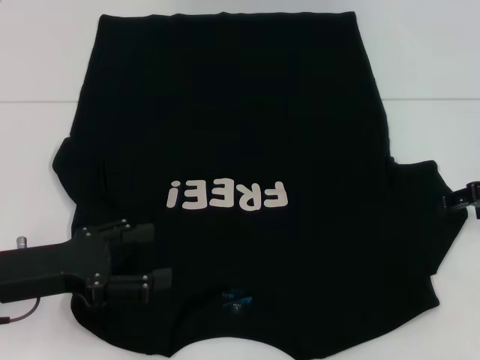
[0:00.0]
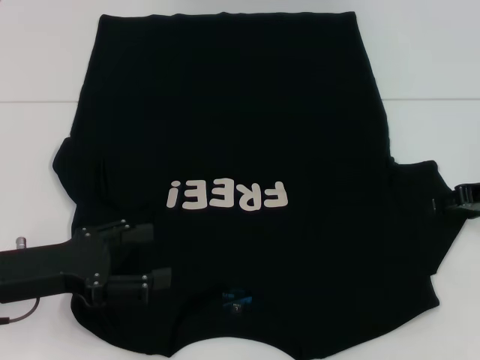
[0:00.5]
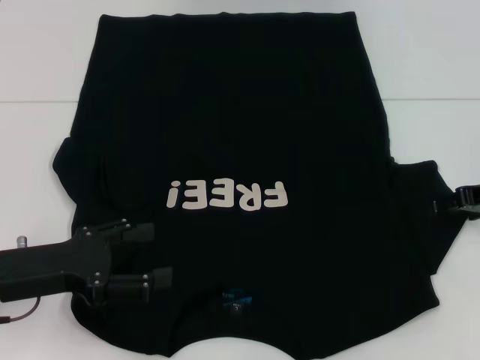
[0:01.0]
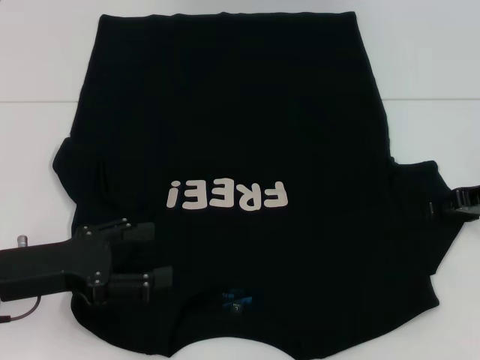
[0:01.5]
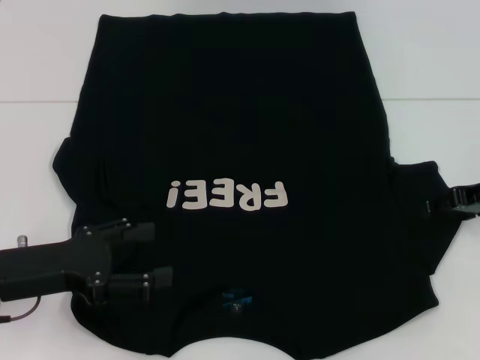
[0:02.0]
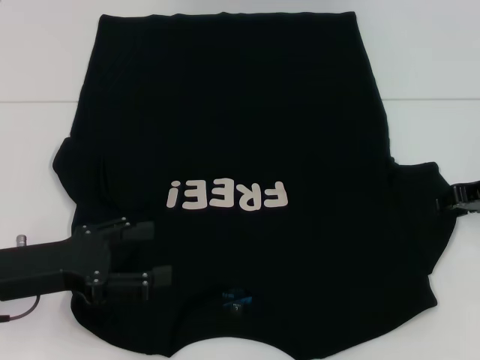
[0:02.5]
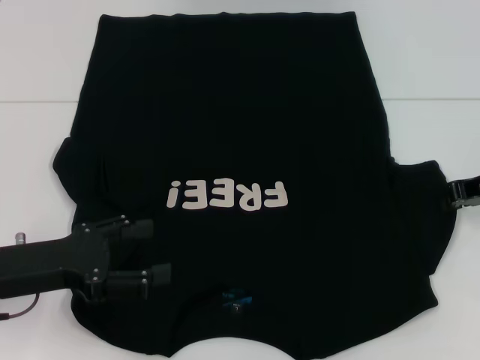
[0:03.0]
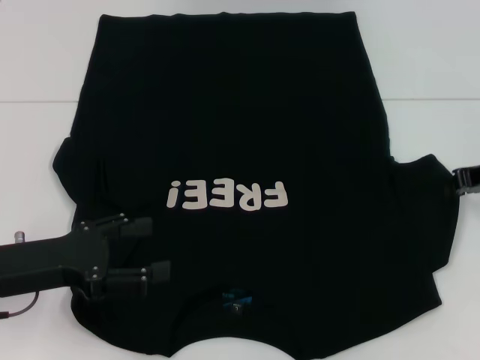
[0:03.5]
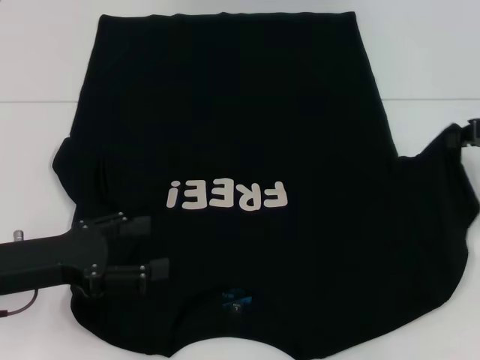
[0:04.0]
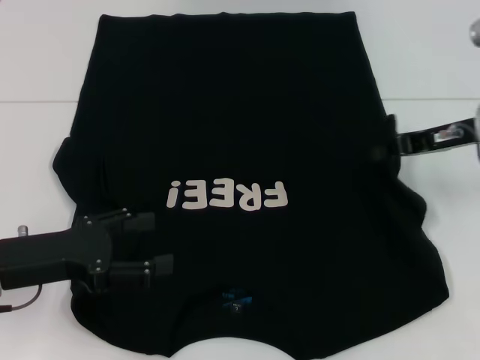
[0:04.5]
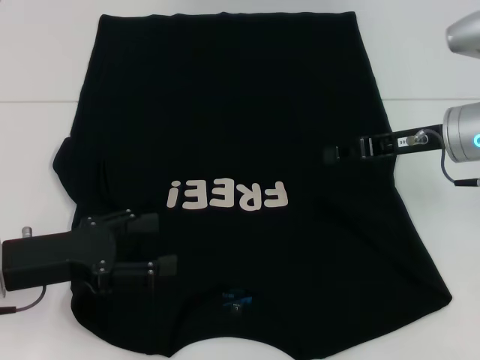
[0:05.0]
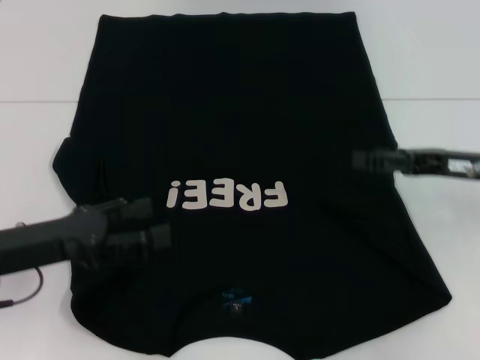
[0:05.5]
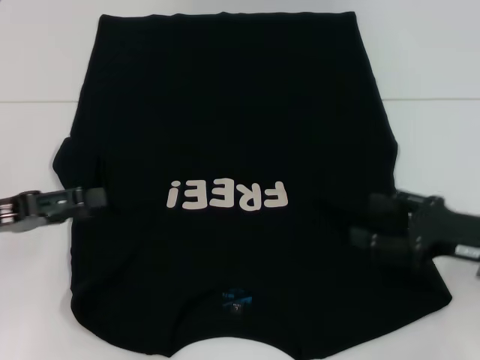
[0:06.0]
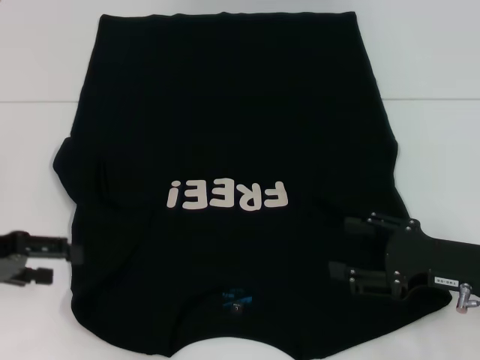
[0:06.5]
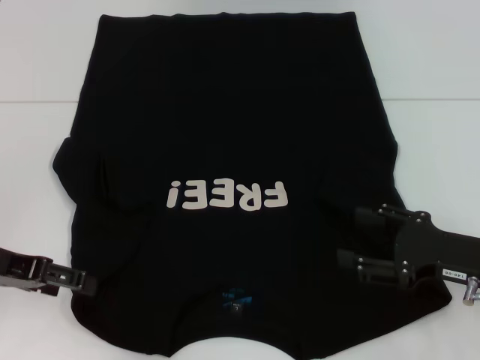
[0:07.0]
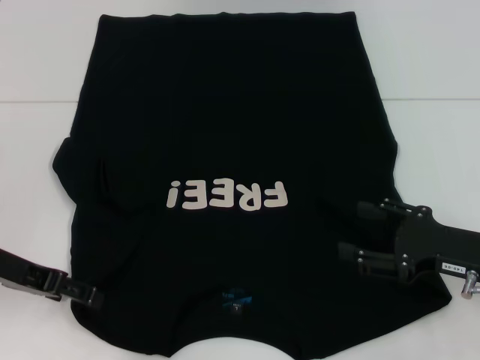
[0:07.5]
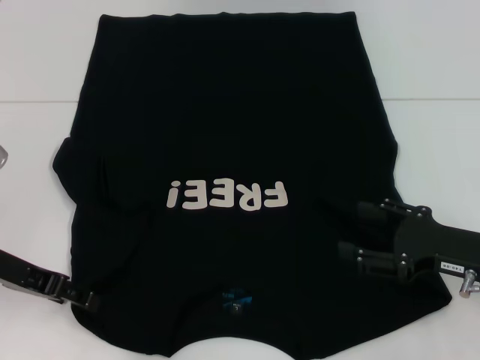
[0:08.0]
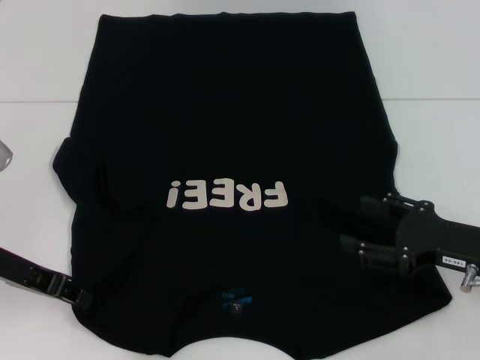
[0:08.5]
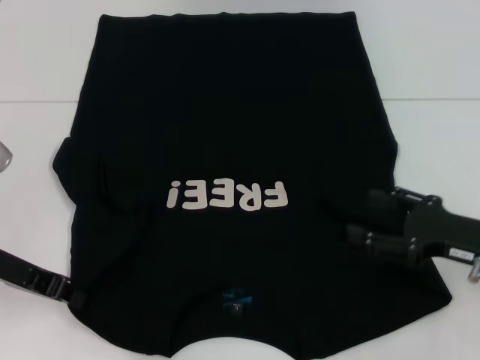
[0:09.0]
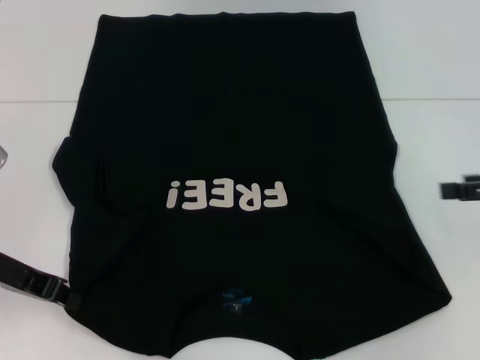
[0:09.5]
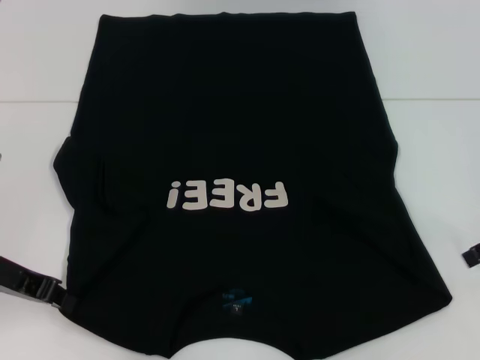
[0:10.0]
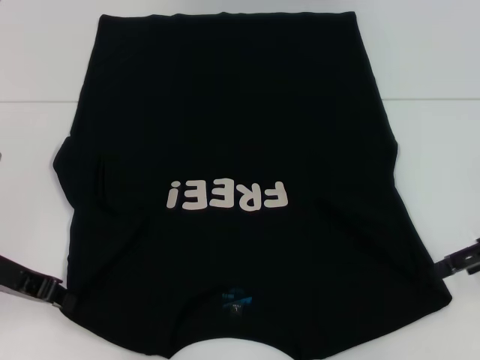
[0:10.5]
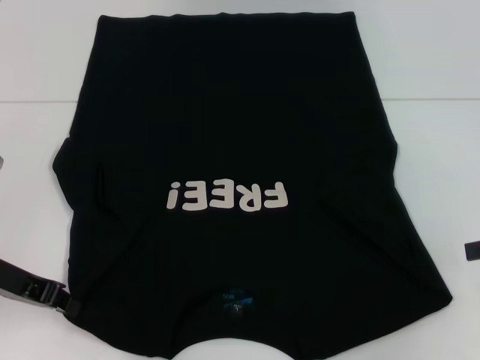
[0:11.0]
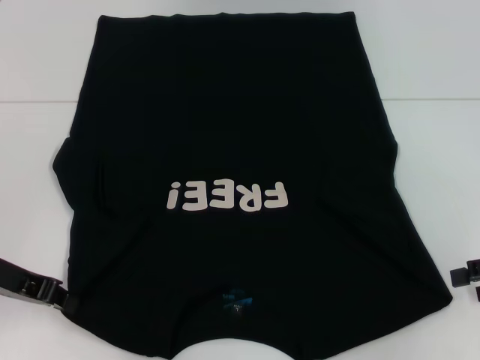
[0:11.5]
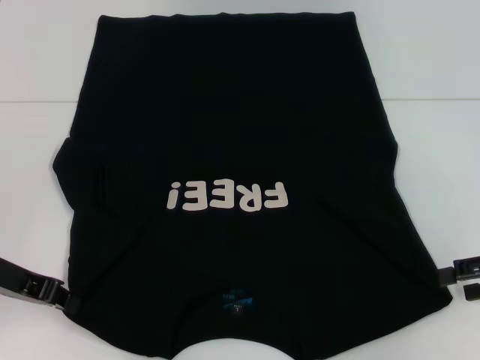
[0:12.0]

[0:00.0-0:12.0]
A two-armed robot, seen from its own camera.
Step, 0:00.0 to 0:05.0: Fold the bottom right sleeve with your right hand.
Step, 0:05.5 to 0:09.0: Grab the bottom left corner with your left hand.
0:00.0 to 0:02.0: The grippers move only a little.
0:02.0 to 0:04.0: The right gripper changes place by approximately 5 cm, and closes its fingers.
0:04.0 to 0:06.0: The left gripper shifts roughly 5 cm to the left. The right gripper goes roughly 15 cm backward and downward, and opens.
0:06.0 to 0:08.0: The left gripper shifts by approximately 5 cm.
0:08.0 to 0:10.0: The right gripper moves upward and forward, approximately 10 cm. The left gripper closes its fingers.
0:10.0 to 0:12.0: The right gripper travels downward by about 5 cm.

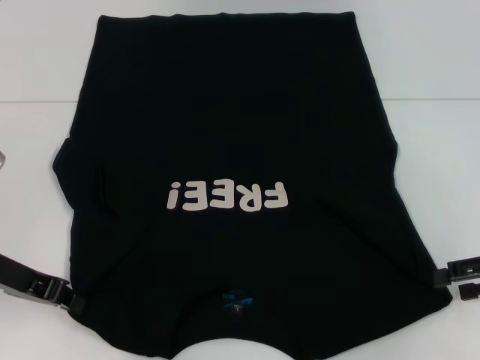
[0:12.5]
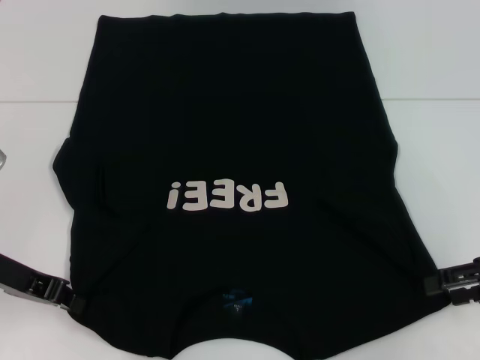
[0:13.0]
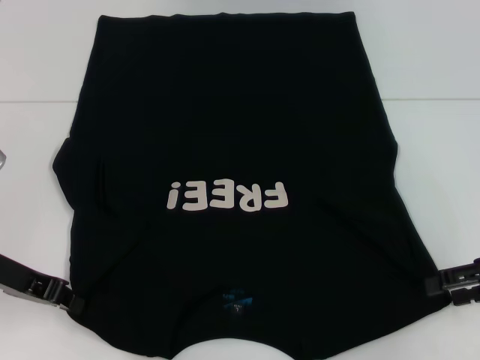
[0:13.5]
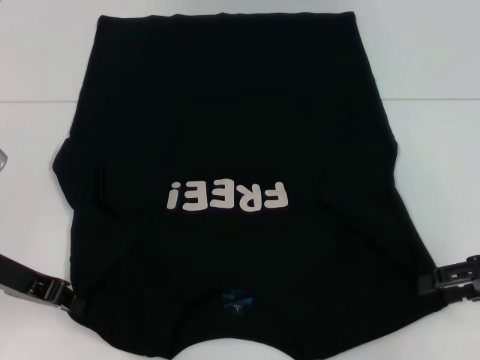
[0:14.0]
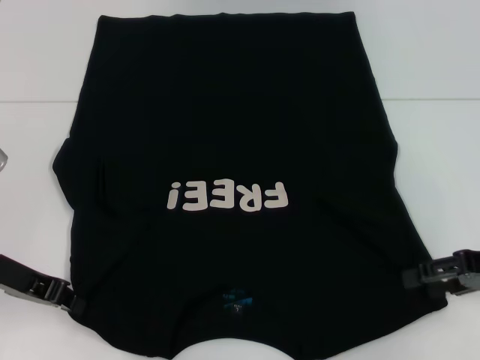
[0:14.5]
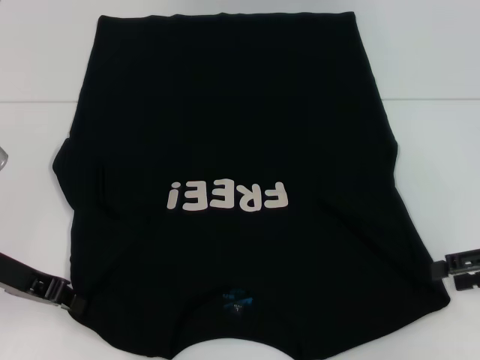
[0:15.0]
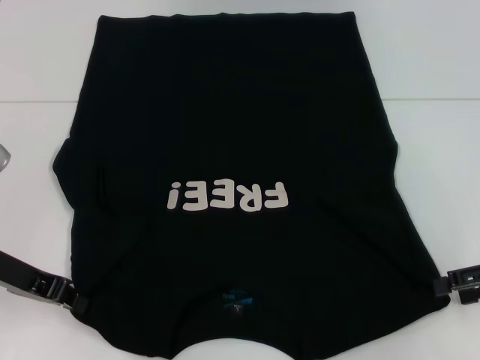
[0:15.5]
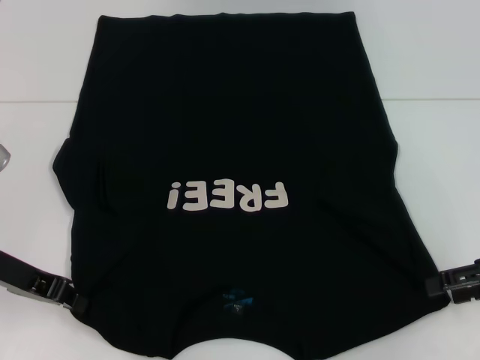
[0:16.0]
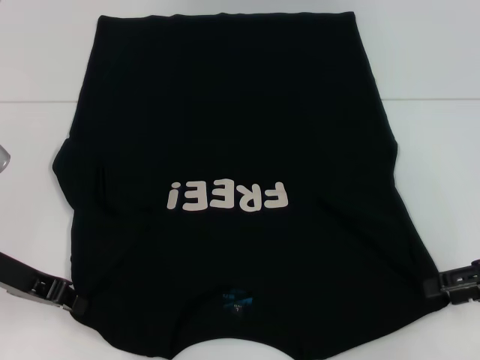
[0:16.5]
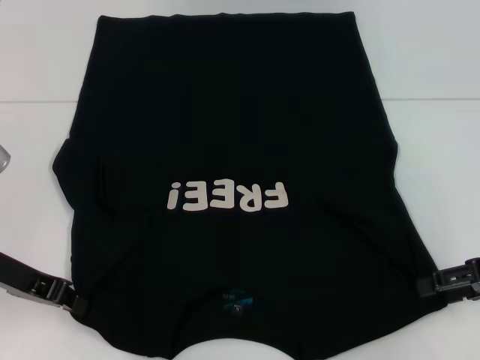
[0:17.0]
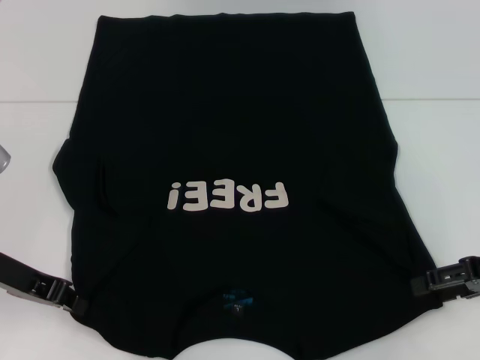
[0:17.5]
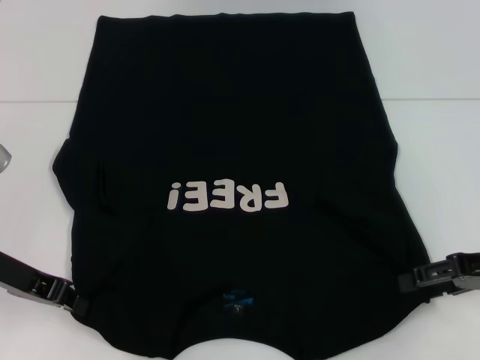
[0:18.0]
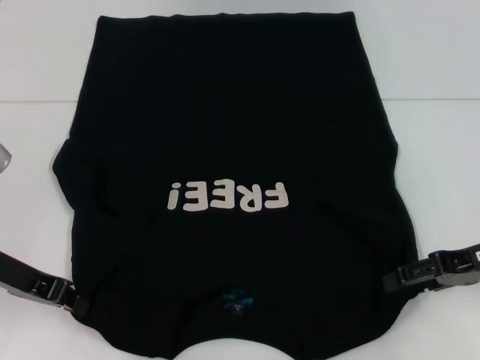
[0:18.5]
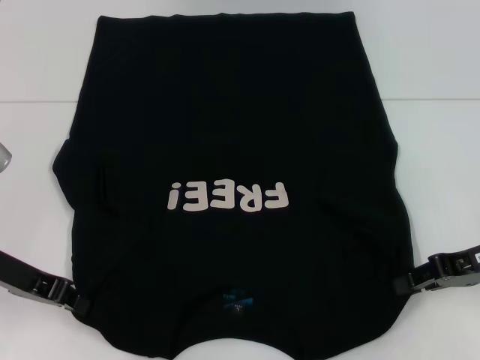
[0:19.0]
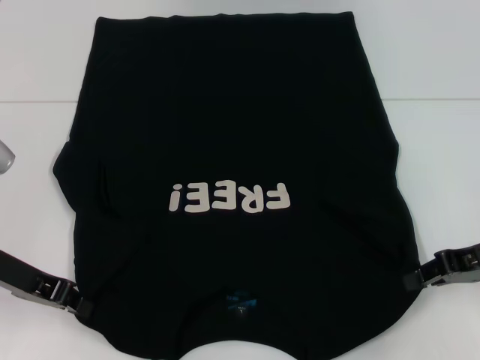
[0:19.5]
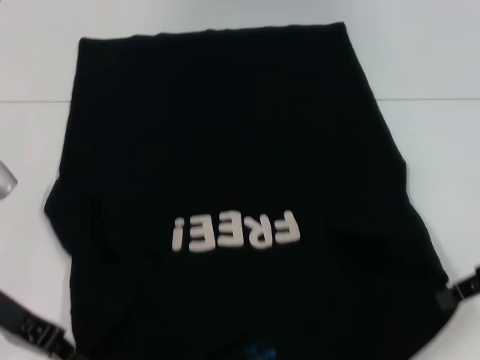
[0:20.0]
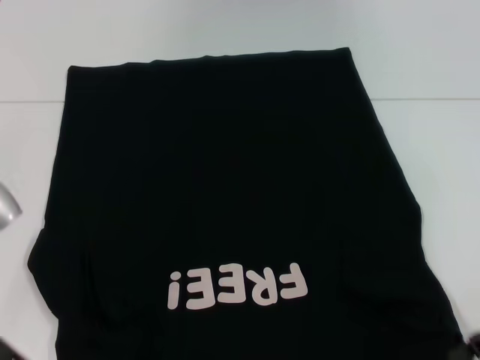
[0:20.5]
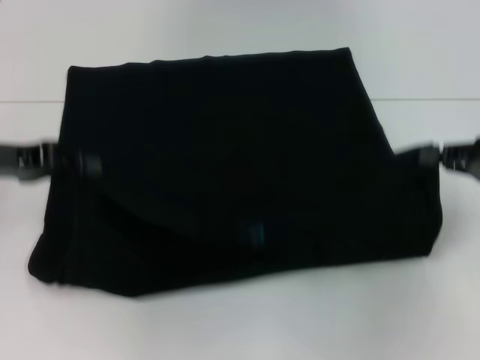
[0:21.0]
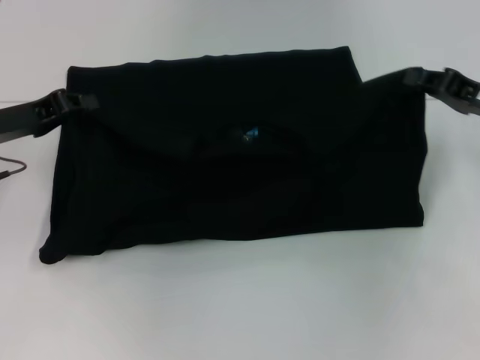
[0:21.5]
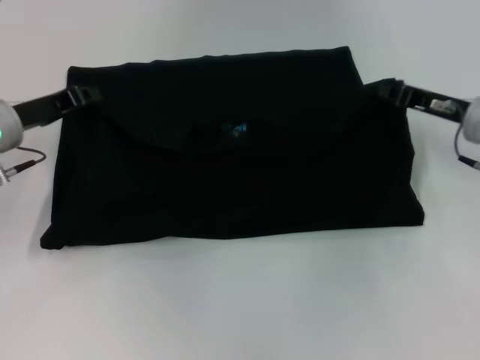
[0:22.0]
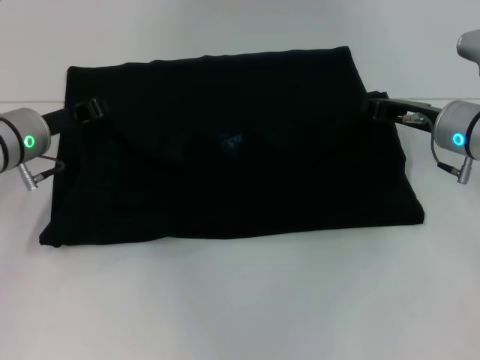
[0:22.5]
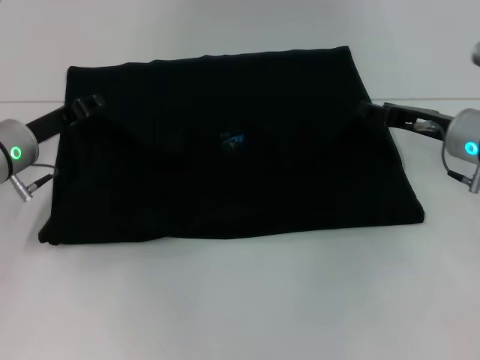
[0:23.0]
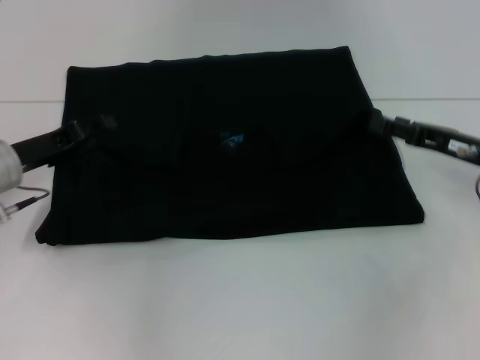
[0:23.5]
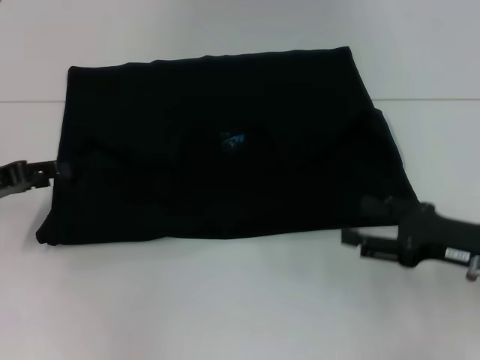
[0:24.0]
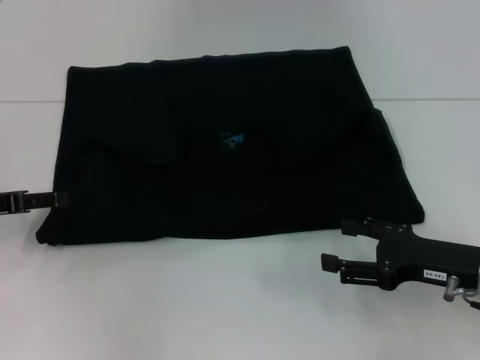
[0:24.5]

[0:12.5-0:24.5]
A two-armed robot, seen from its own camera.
Step, 0:12.5 to 0:19.0: Grab the bottom right corner with your right hand.
Step, 0:19.5 to 0:22.5: Fold the clothes with your left hand.
Step, 0:19.5 to 0:22.5: Fold the clothes with your right hand.
0:12.5 to 0:18.5: The grippers move only a little.
0:18.5 to 0:20.5: The right gripper moves roughly 5 cm, and closes up.
0:20.5 to 0:22.5: The left gripper moves forward, approximately 15 cm. The right gripper shifts approximately 15 cm forward and to the left.
0:22.5 to 0:24.5: The right gripper travels backward by roughly 15 cm, and opens. The left gripper moves to the left and backward, roughly 15 cm, and opens up.

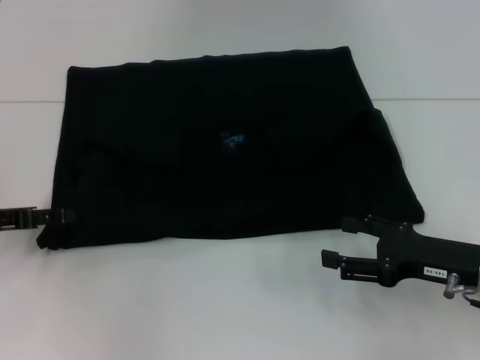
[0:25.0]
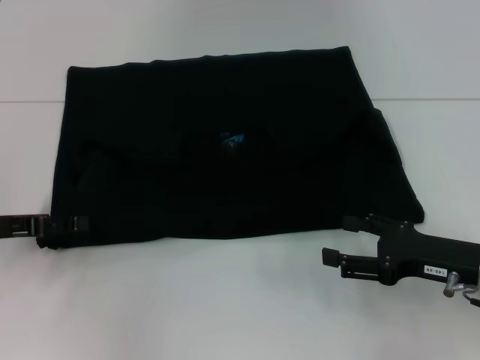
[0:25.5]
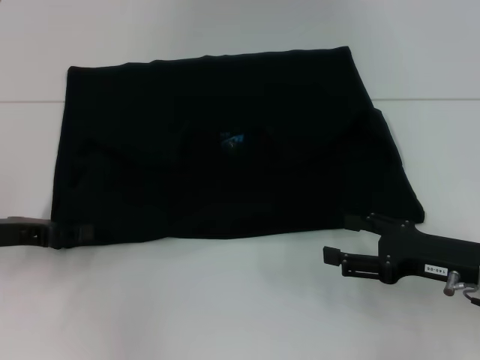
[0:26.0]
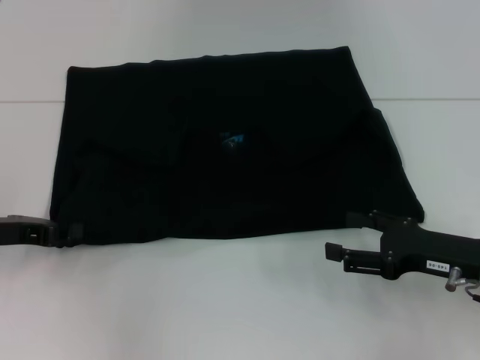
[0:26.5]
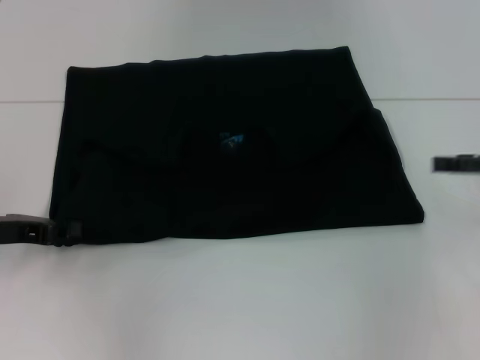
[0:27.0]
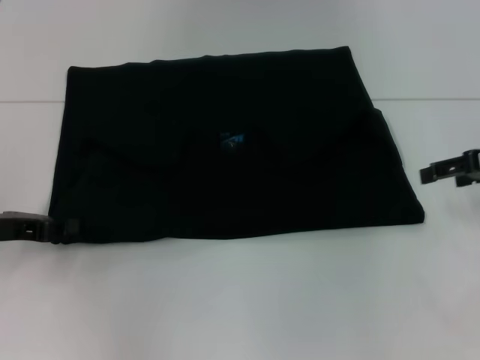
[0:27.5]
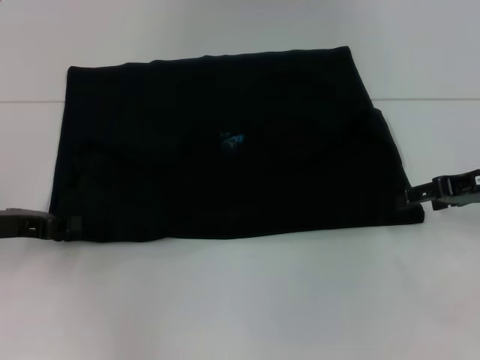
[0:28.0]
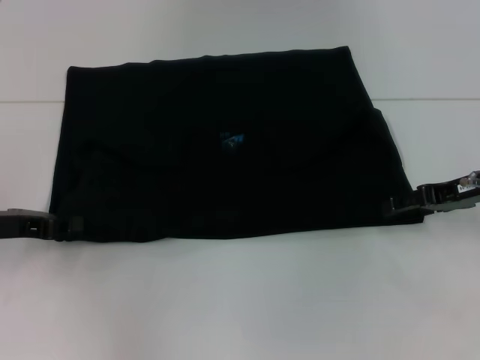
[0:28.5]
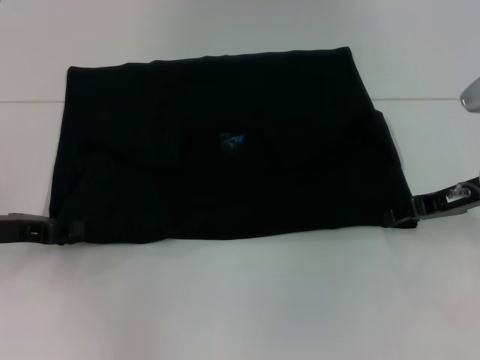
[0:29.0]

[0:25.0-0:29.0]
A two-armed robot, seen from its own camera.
0:25.0 to 0:27.0: The right gripper goes some 15 cm upward, to the right and forward. Meanwhile the left gripper closes up.
0:27.0 to 0:29.0: The right gripper moves to the left, about 10 cm.
